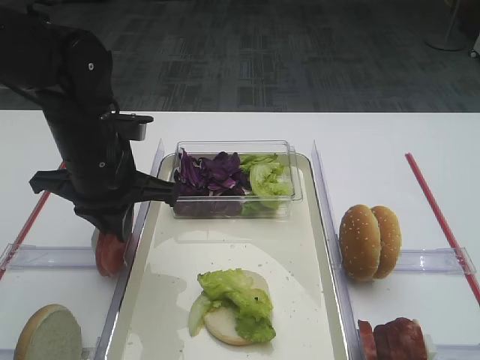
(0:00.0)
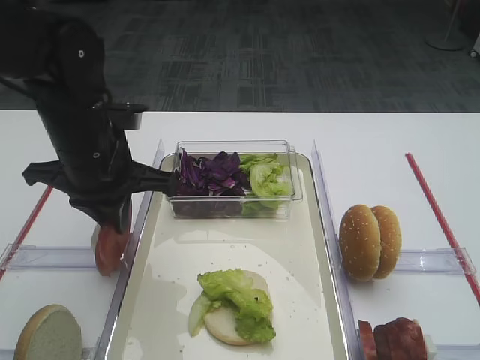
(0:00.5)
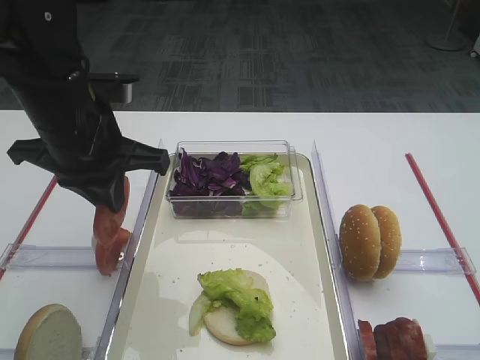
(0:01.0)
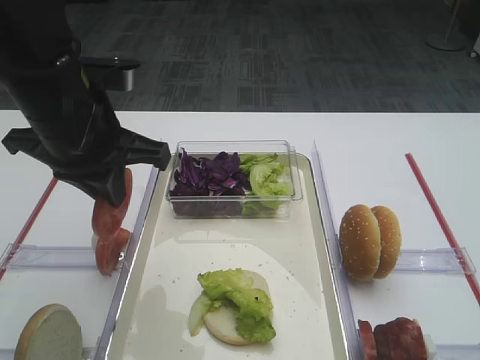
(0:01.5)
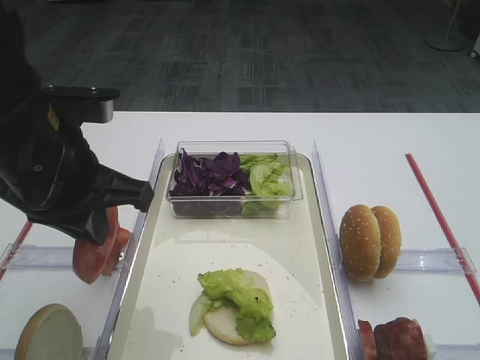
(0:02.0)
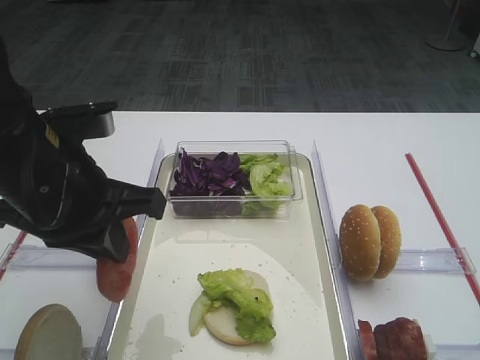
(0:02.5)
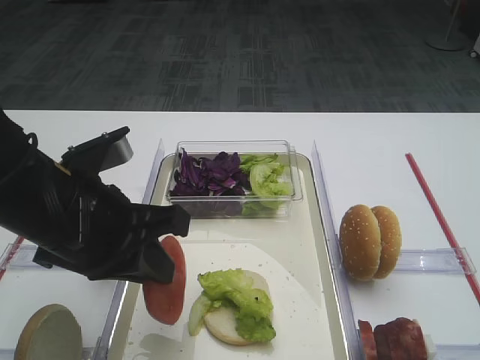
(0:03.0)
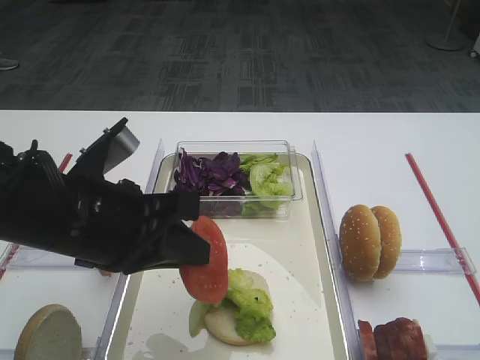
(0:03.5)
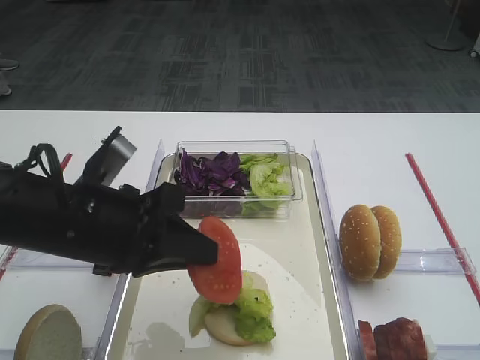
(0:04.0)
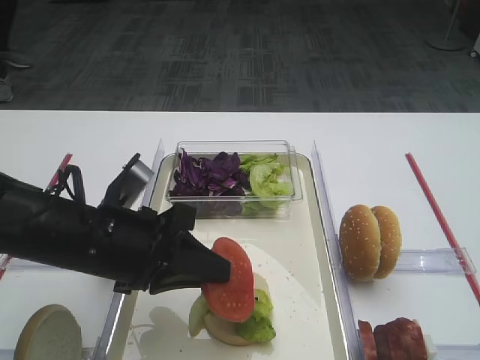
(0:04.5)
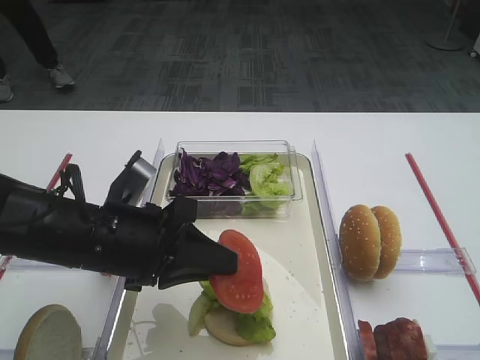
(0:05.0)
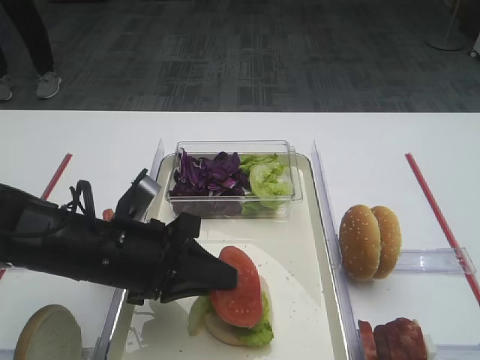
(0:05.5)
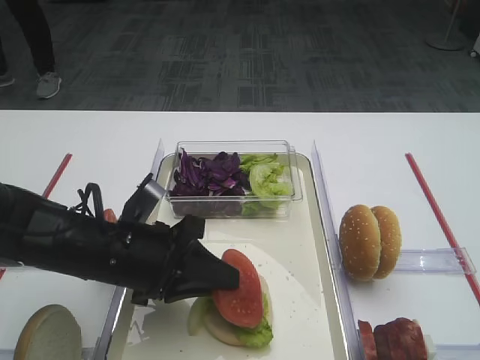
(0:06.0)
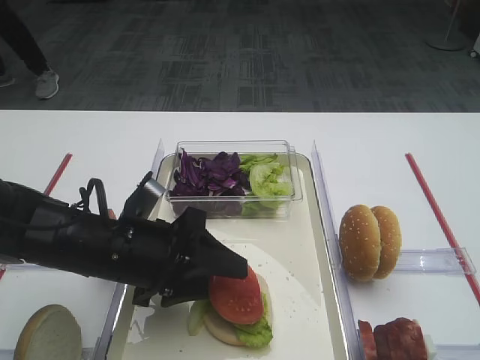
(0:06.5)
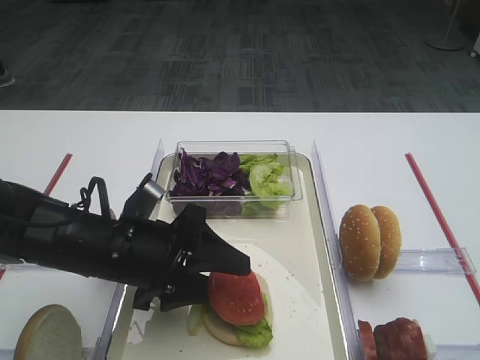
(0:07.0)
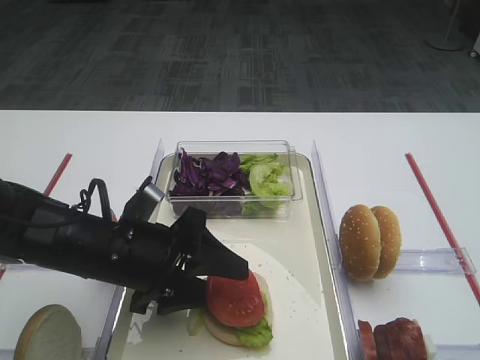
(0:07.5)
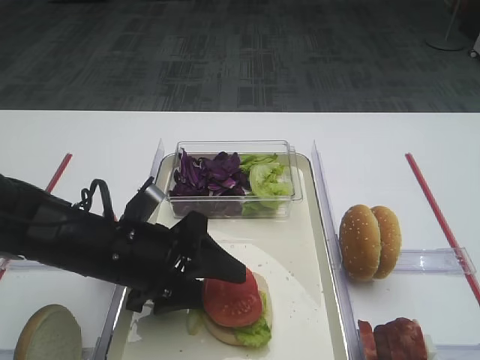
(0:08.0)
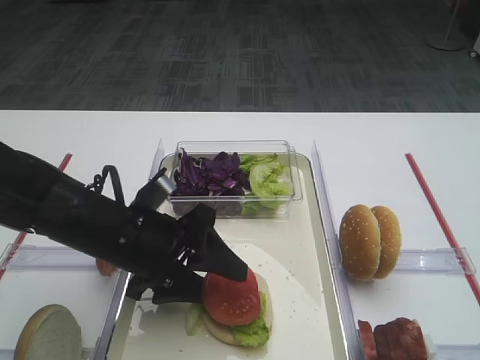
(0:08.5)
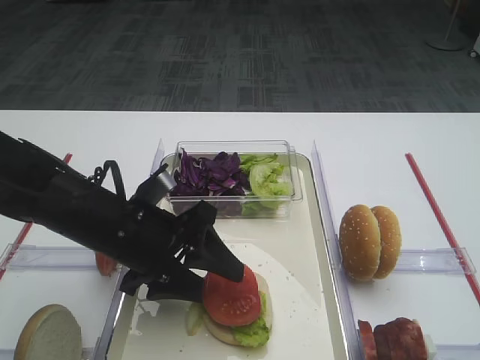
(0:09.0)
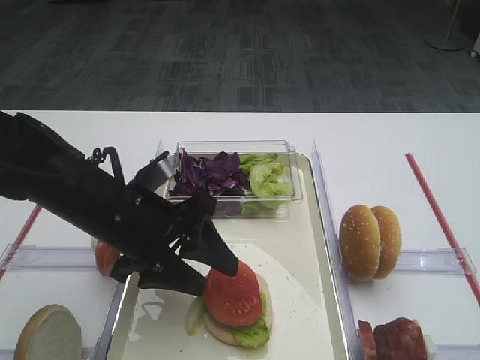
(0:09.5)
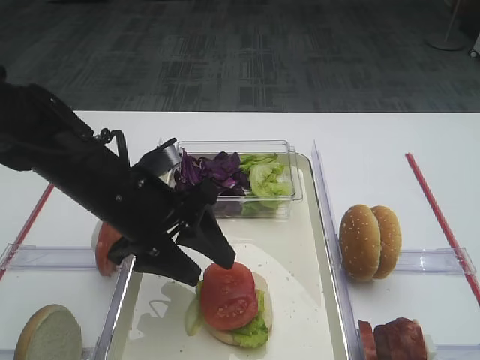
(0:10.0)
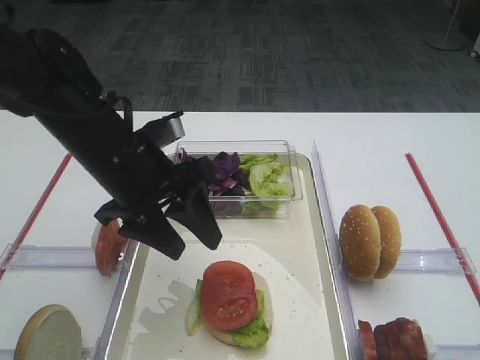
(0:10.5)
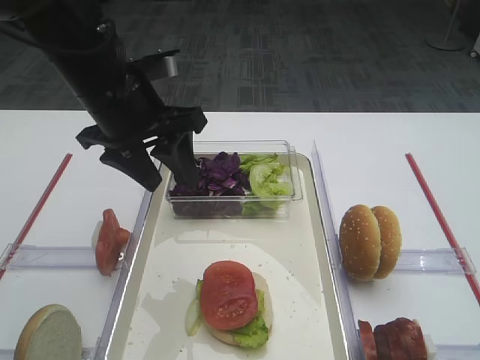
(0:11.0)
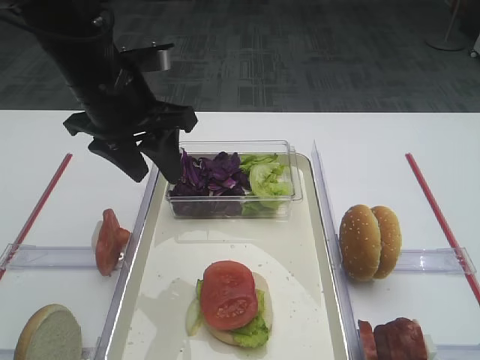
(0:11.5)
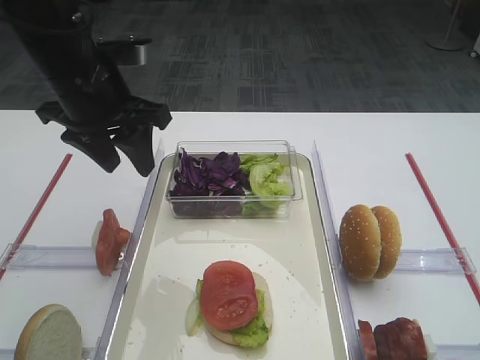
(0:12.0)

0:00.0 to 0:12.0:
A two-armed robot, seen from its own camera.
Step, 0:01.5 to 0:10.0: Place the tomato slice on the lettuce leaf with the left gripper.
0:00.0 to 0:02.0: The left gripper moves backward and upward, about 10 cm.
0:02.0 to 0:04.0: The left gripper heads downward, covering some 5 cm.
0:04.0 to 0:06.0: The left gripper goes roughly 5 cm downward.
0:06.0 to 0:08.0: The left gripper opens up.
0:08.0 to 0:10.0: The left gripper shifts by roughly 5 cm.
0:10.0 to 0:12.0: The left gripper heads upward and forward, covering some 10 cm.

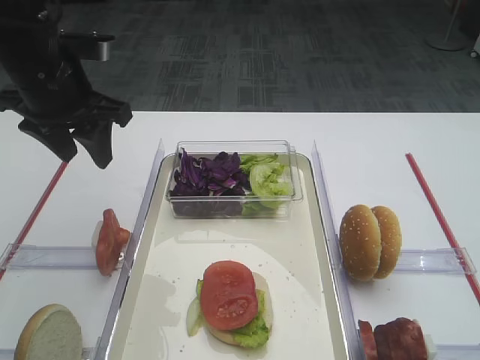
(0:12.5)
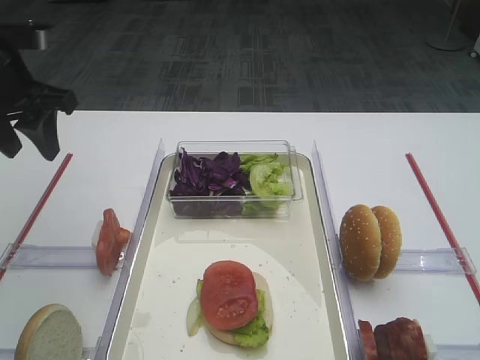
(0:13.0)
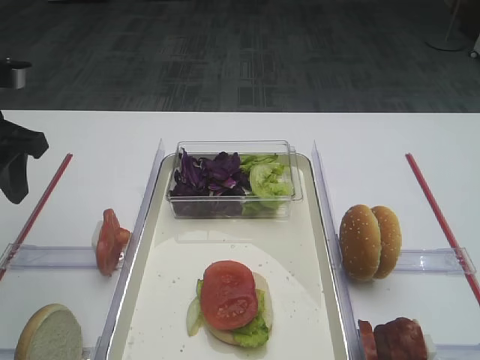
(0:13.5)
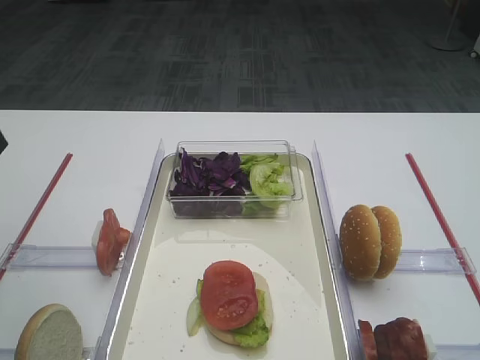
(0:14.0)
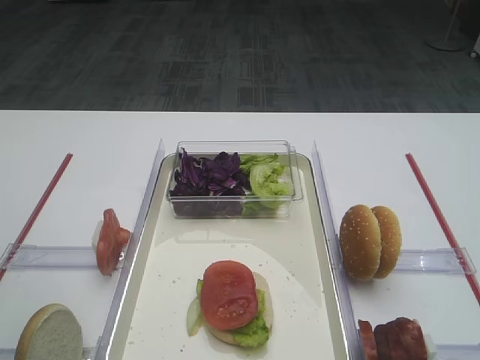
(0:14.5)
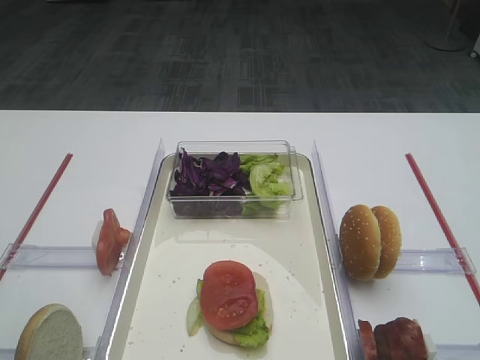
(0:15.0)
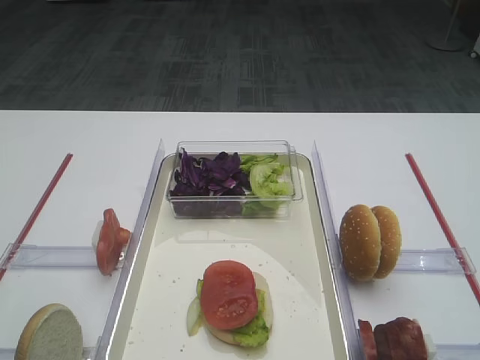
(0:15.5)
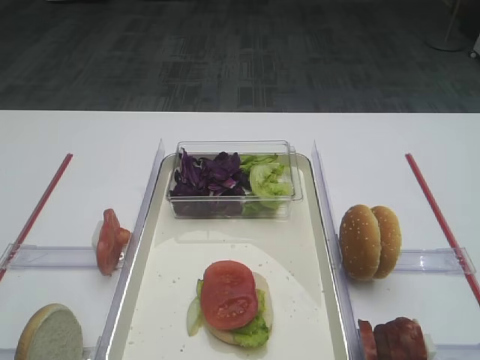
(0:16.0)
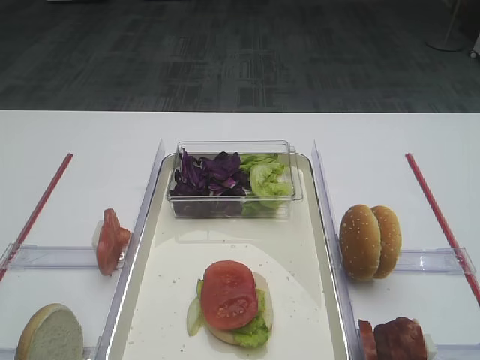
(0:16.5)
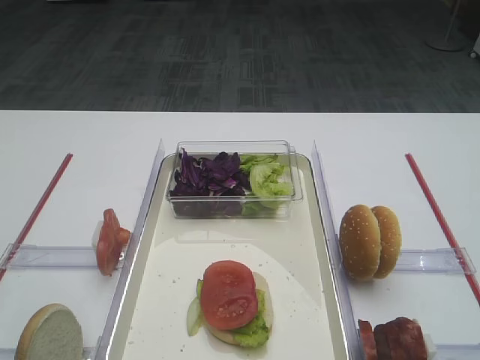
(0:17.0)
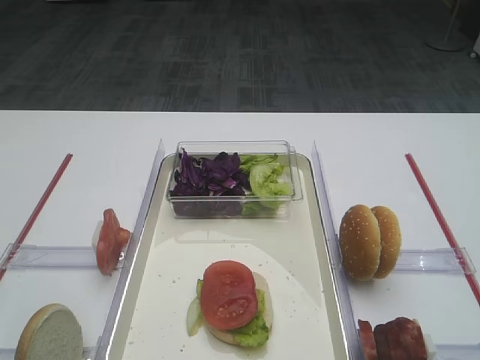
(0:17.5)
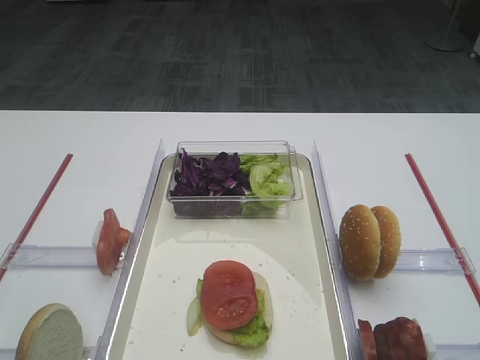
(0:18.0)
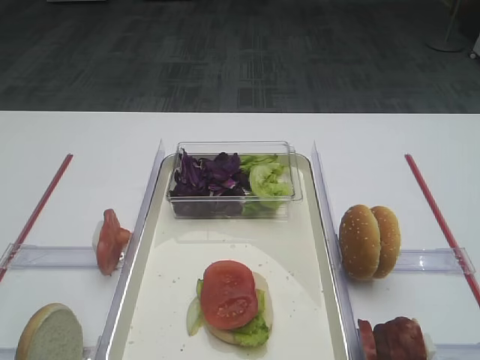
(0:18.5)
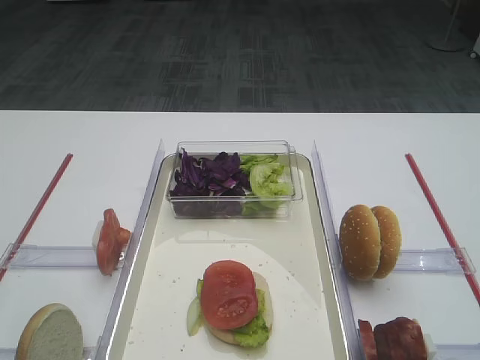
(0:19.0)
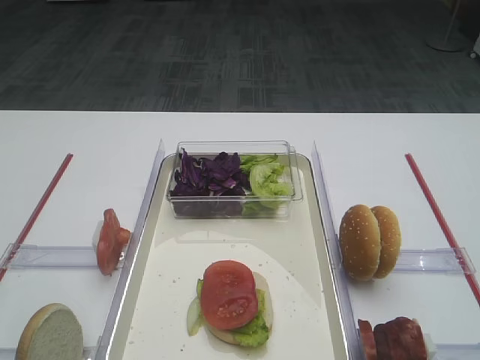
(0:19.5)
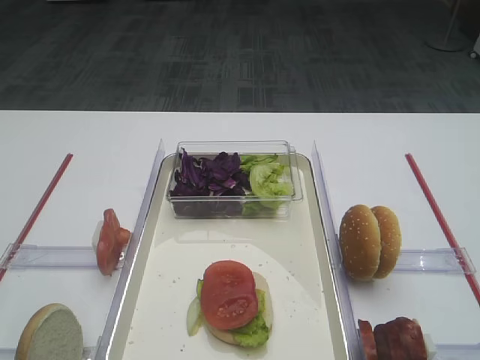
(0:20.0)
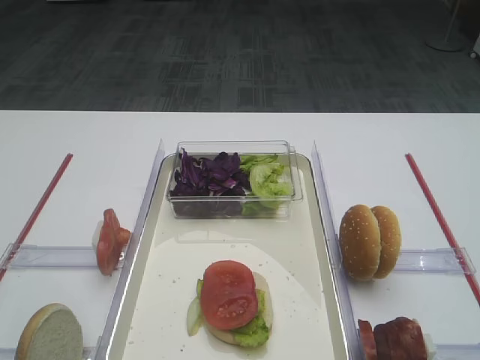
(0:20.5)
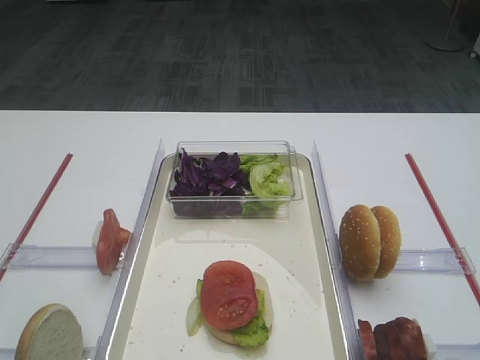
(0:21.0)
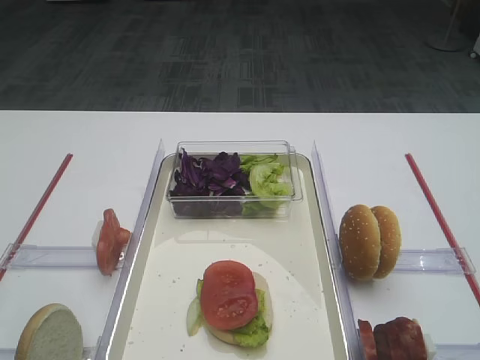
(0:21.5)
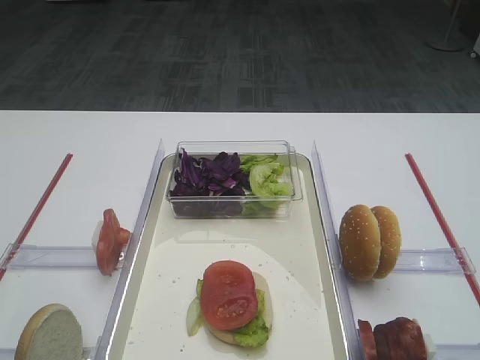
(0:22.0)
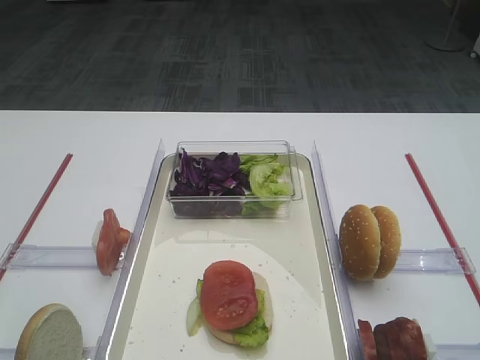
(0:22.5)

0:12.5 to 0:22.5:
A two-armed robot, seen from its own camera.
0:12.5 to 0:14.5: The left gripper moves backward and to the left, about 20 cm.
0:18.5 to 0:22.5: Both grippers stay about where they are.

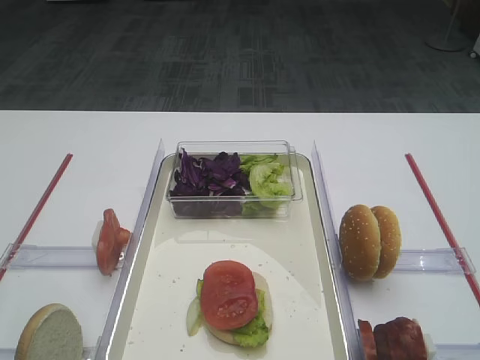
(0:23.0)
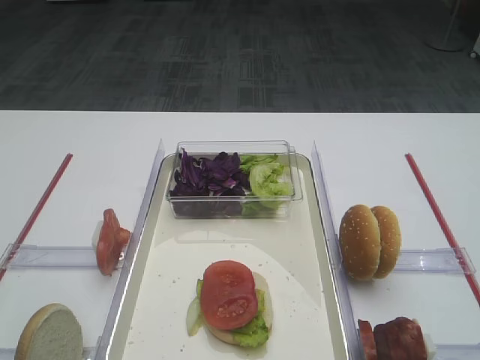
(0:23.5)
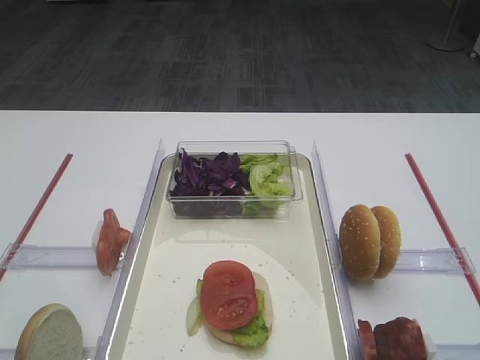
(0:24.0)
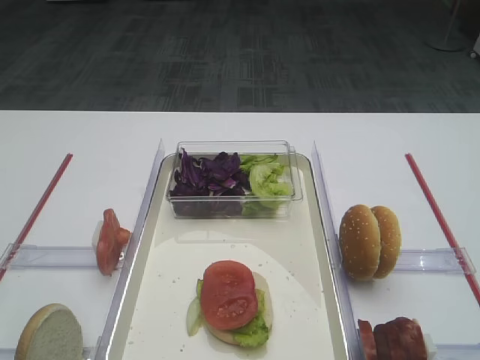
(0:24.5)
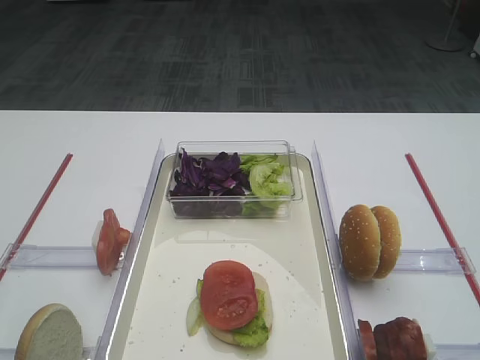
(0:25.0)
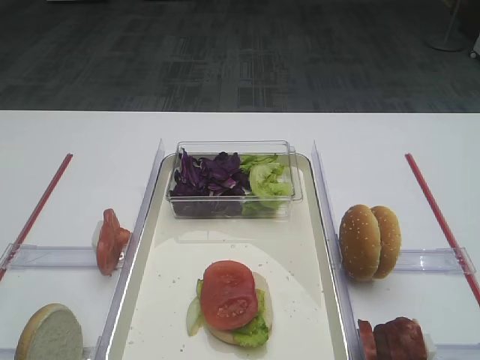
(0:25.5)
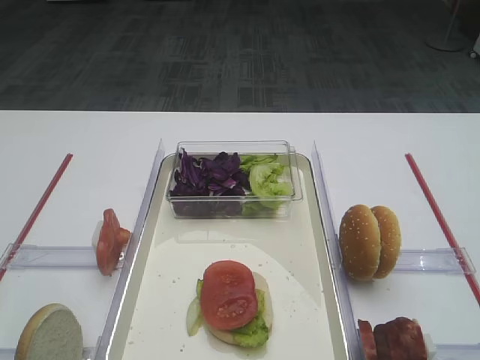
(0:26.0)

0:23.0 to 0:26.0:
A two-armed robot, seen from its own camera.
0:23.0 to 0:26.0: Both grippers stay put.

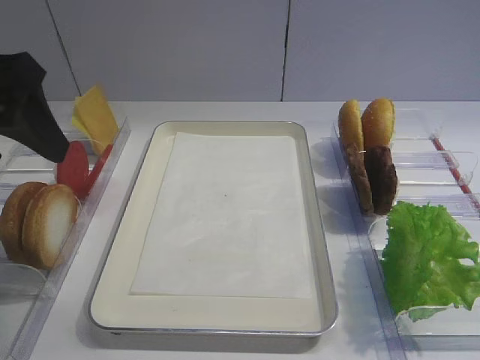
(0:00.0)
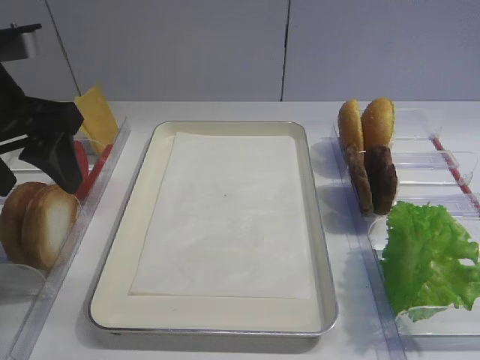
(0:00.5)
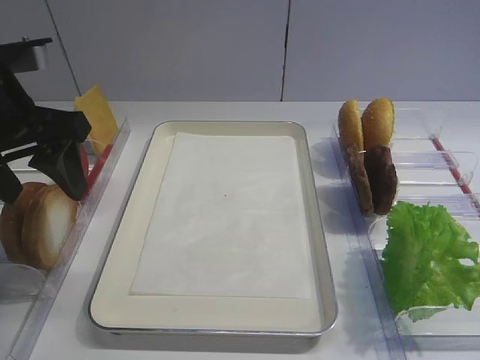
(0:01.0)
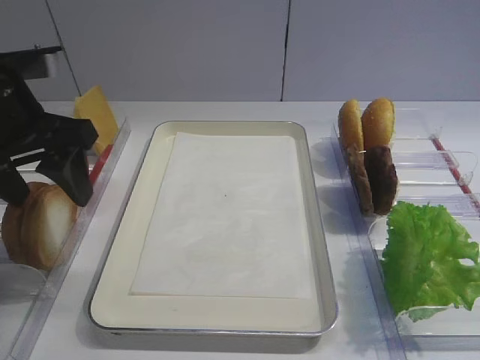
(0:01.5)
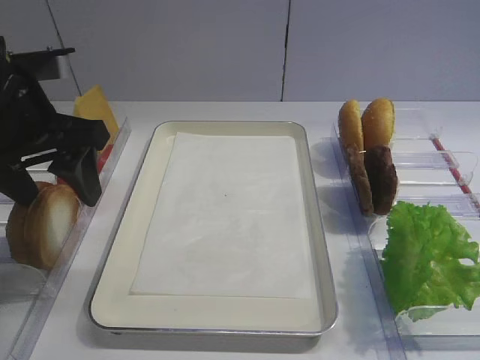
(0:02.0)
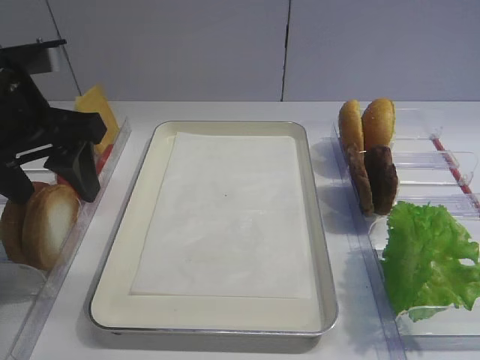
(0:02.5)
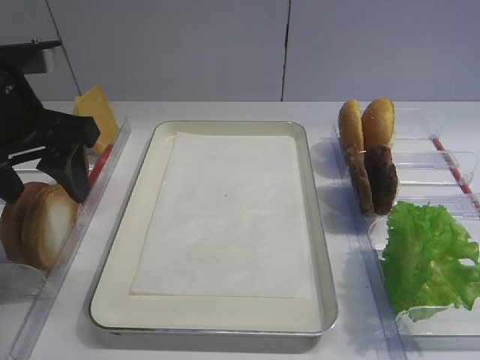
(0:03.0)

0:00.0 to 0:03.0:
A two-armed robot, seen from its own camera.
0:00.0 to 0:01.5: The left gripper moves downward, some 5 cm.
0:01.5 to 0:03.0: Both grippers stay about where they are.
